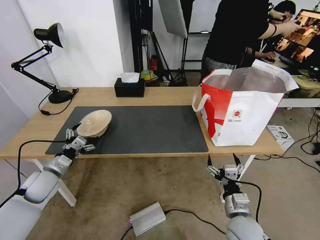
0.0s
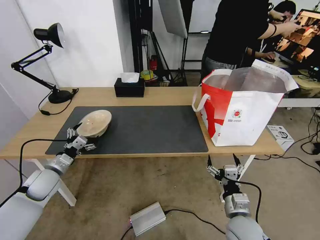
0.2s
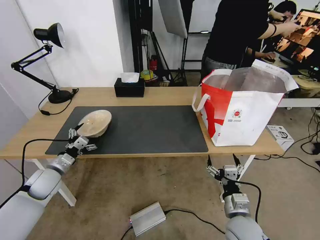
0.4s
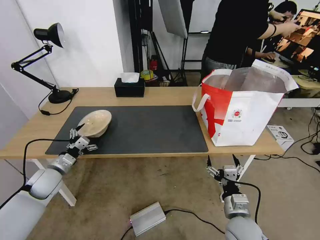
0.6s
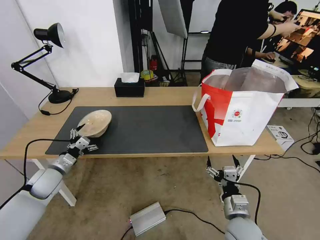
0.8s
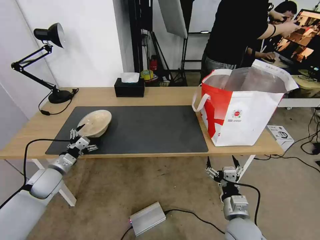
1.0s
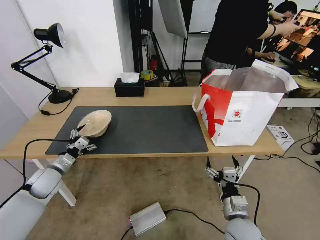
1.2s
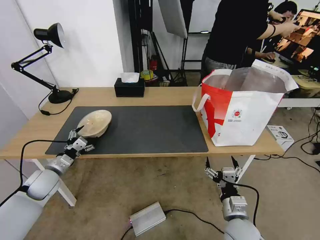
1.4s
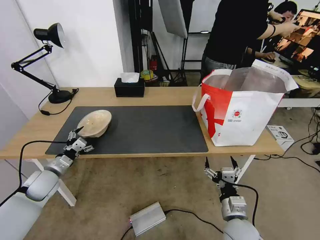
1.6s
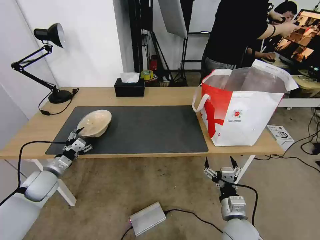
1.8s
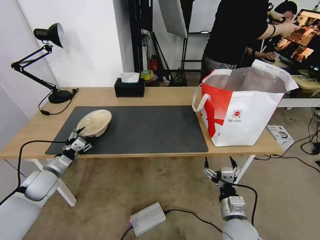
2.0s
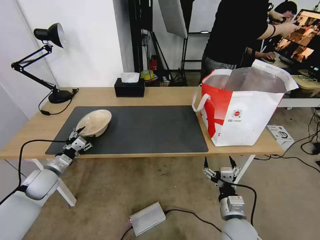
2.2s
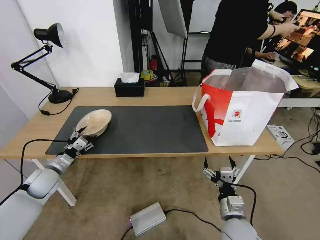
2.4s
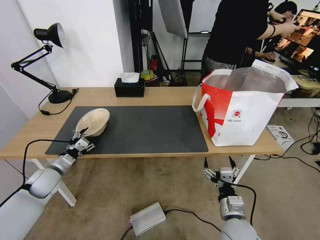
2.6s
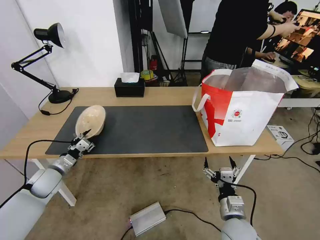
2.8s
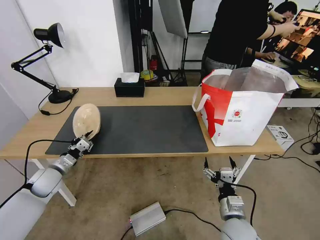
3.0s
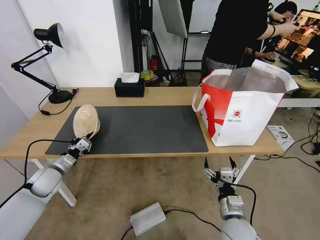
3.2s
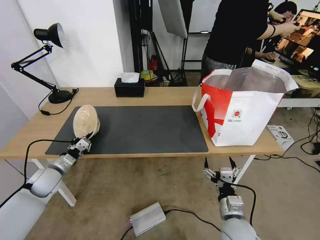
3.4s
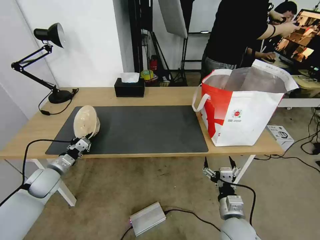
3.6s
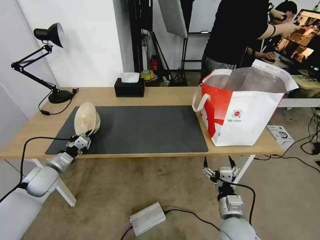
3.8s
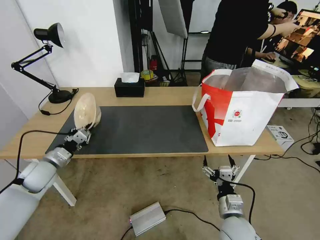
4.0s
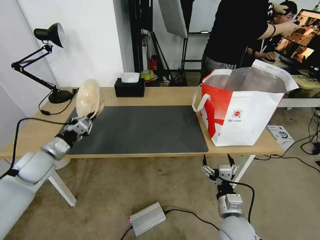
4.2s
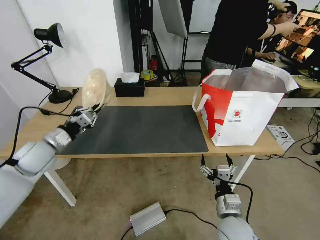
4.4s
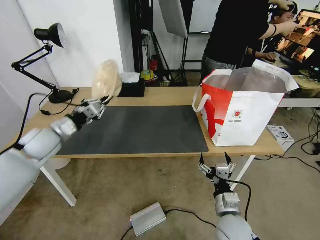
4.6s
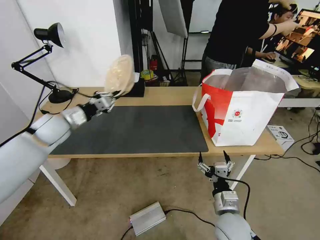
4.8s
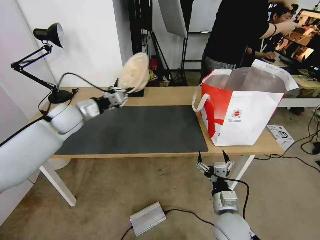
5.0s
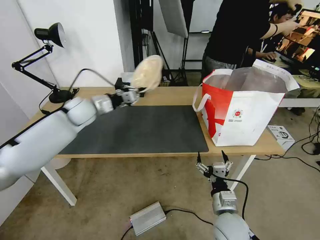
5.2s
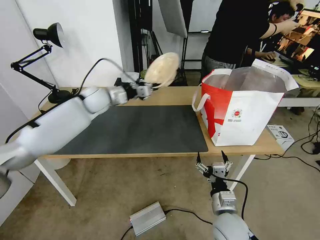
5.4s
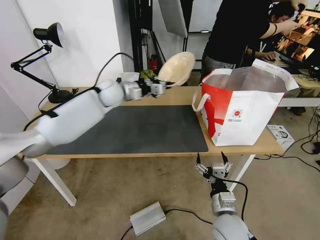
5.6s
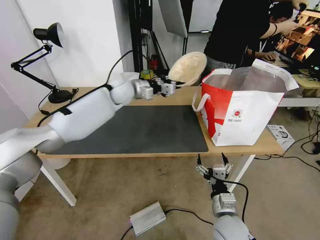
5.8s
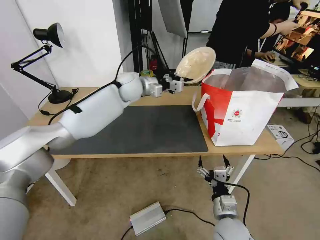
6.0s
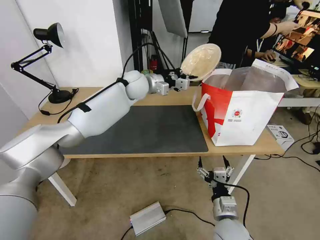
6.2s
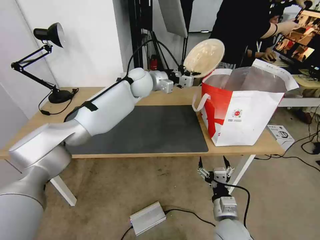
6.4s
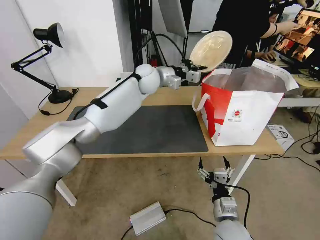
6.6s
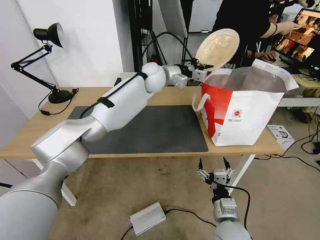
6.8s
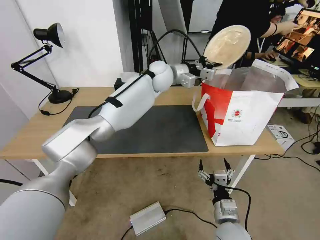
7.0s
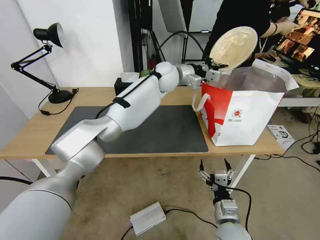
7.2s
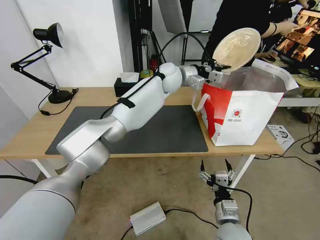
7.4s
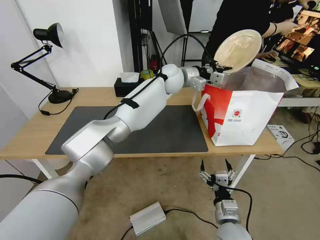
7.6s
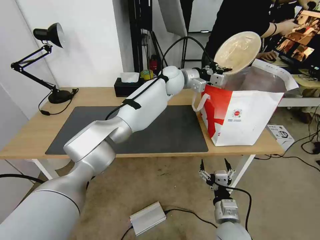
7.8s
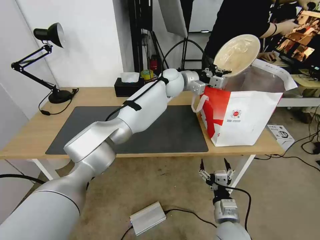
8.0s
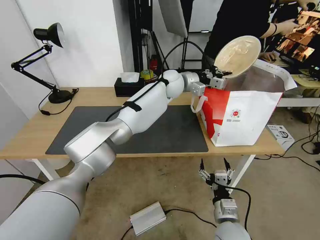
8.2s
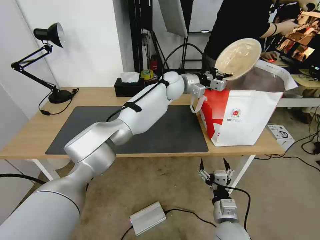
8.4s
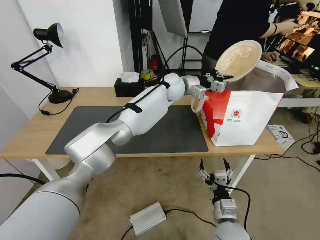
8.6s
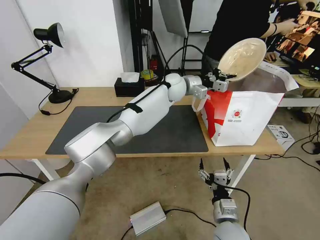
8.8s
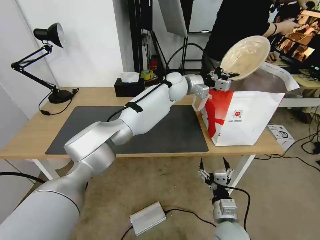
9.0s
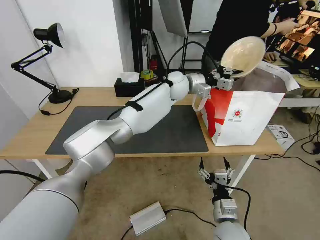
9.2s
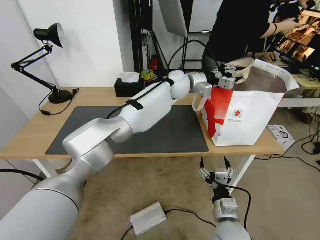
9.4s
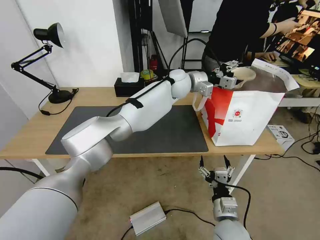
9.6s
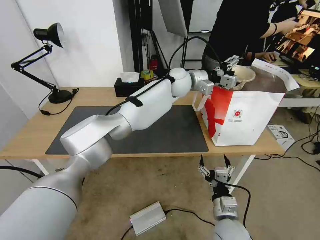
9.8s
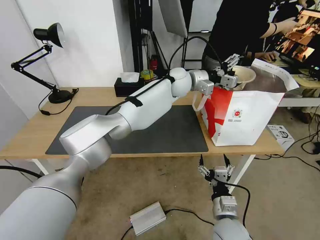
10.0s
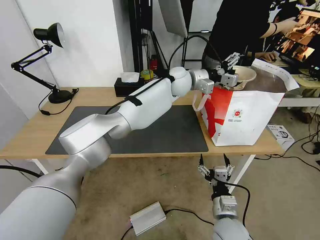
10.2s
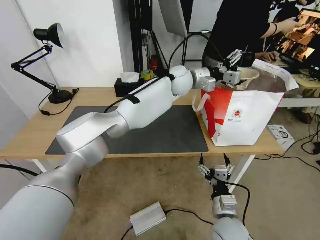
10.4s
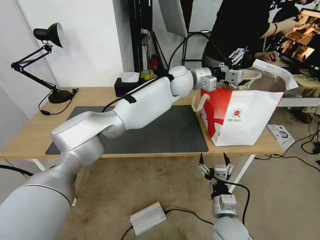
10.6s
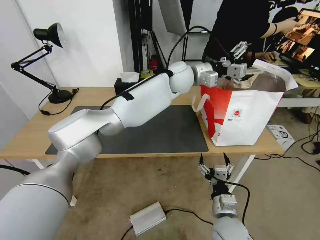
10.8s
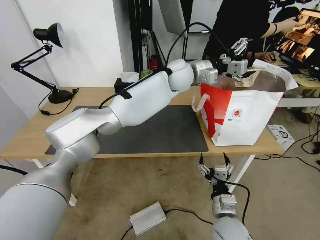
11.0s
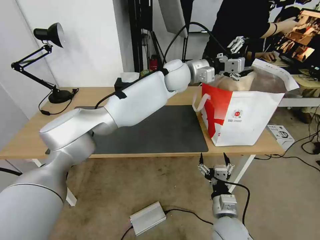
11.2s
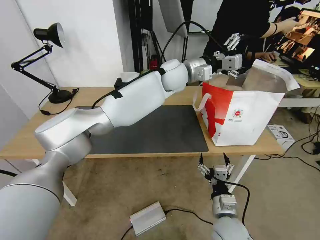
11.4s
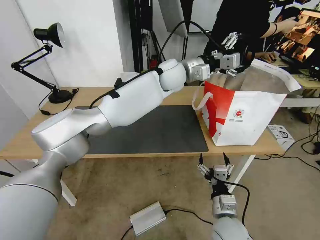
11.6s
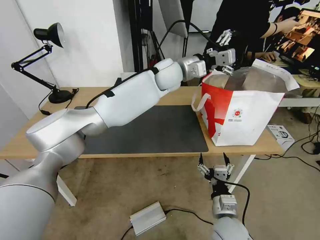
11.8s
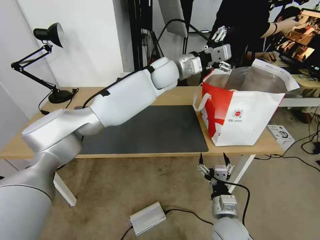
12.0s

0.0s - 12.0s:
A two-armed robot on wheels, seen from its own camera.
Task of the whole recording: Pick up the trash from the table and place it into the takeout bag.
0.0s - 1.6s: There are only small adjustments of the grippers.
1.6s - 3.0s: The left gripper closes up.
3.0s - 4.4s: The left gripper moves upward, some 15 cm.
4.4s - 6.0s: The left gripper is displaced to the right, forward and upward by about 35 cm.
6.0s - 7.6s: The left gripper heads to the right, covering about 15 cm.
7.6s - 9.0s: The grippers make only small movements.
9.0s - 10.4s: The left gripper opens up.
10.4s - 12.0s: The left gripper is displaced to the left by approximately 5 cm.

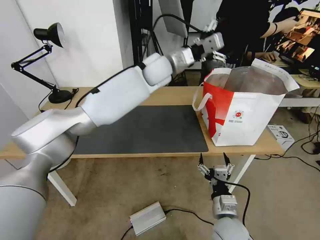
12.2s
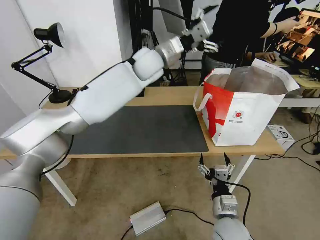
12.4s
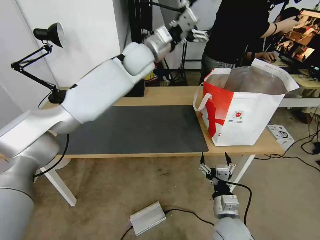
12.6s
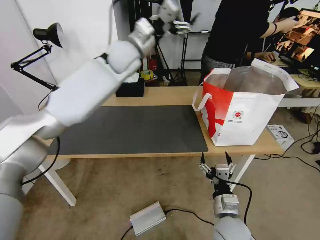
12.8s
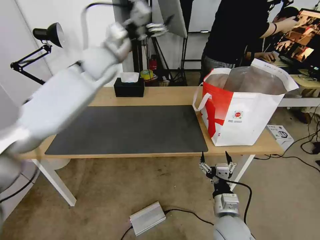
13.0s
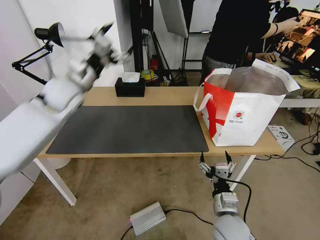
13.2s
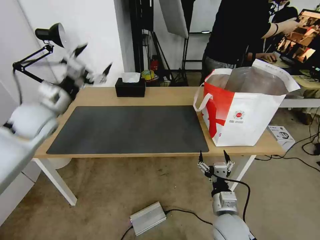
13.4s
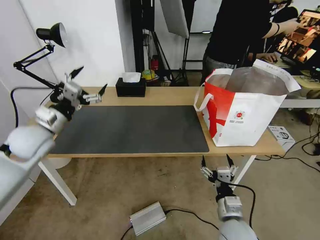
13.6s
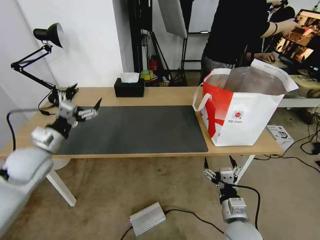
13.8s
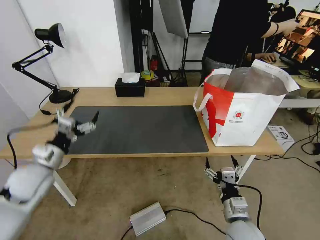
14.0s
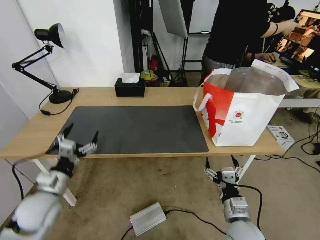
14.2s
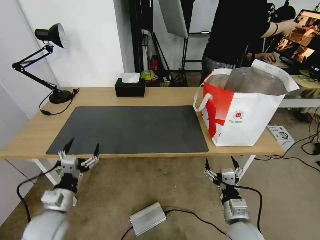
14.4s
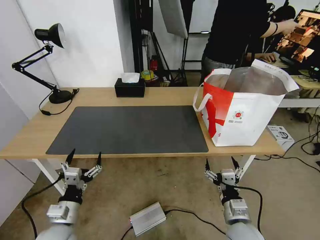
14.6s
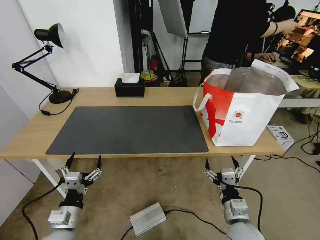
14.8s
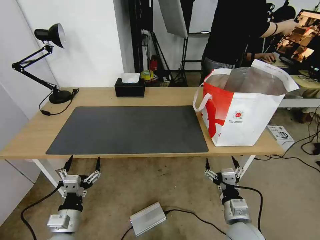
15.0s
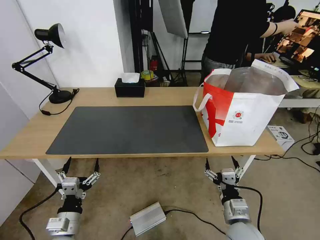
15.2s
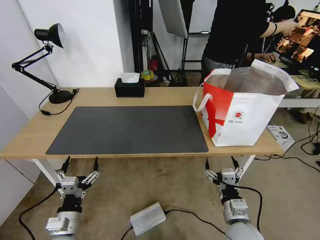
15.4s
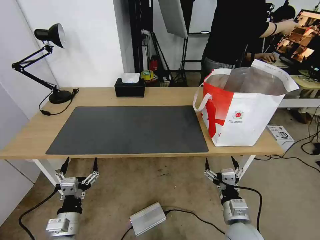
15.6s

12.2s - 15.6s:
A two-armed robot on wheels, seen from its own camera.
Task of the whole recording: Pick up the trash from the table and place it into the takeout bag.
12.2s - 13.8s: The left gripper moves to the left, backward and downward, some 50 cm.
13.8s - 15.6s: The left gripper heads backward, downward and to the right, covering roughly 25 cm.
